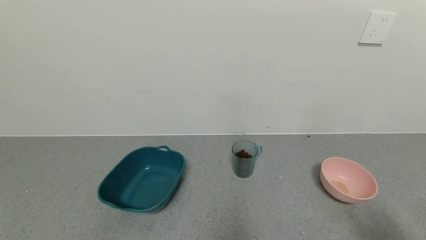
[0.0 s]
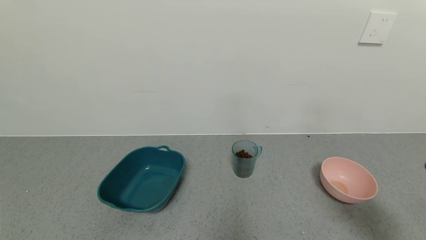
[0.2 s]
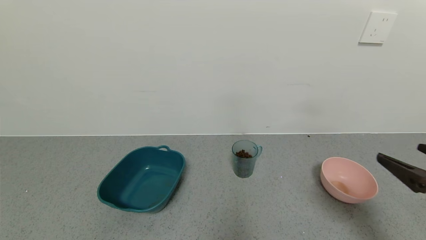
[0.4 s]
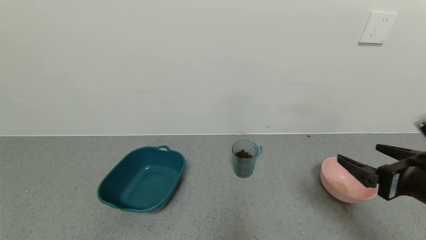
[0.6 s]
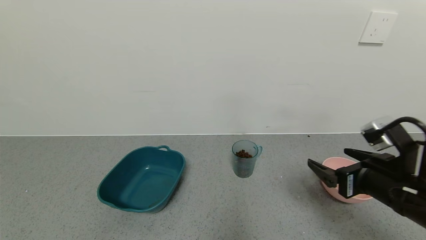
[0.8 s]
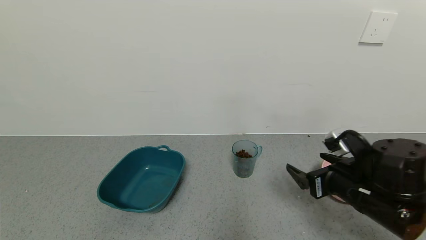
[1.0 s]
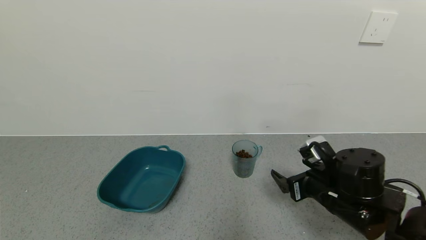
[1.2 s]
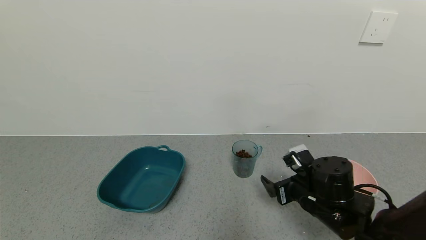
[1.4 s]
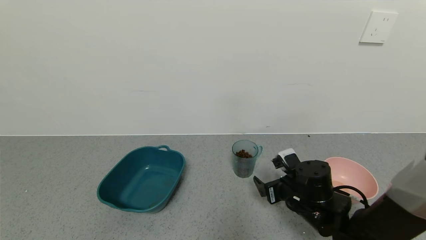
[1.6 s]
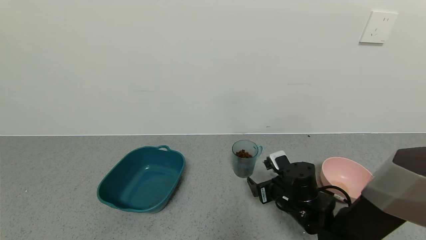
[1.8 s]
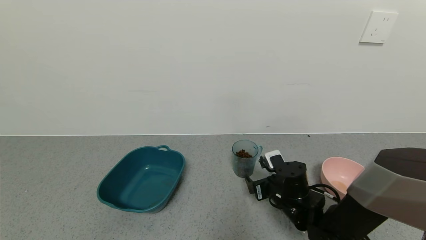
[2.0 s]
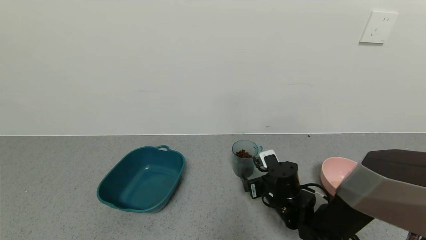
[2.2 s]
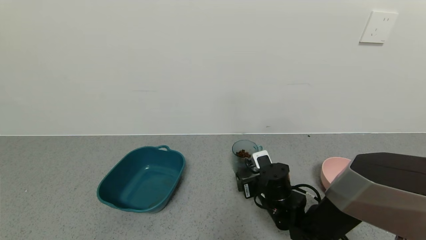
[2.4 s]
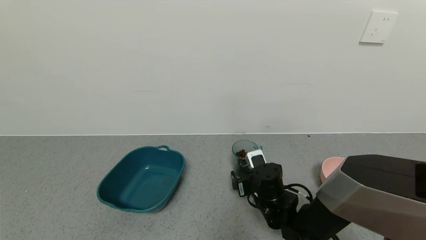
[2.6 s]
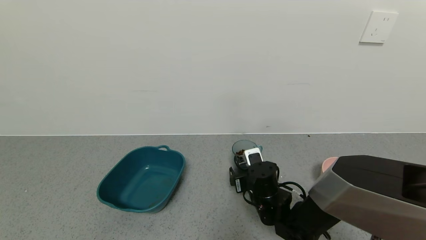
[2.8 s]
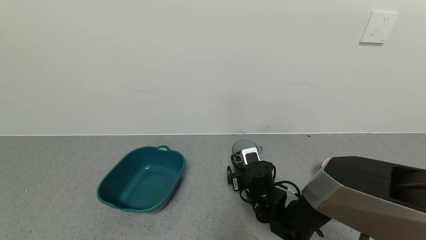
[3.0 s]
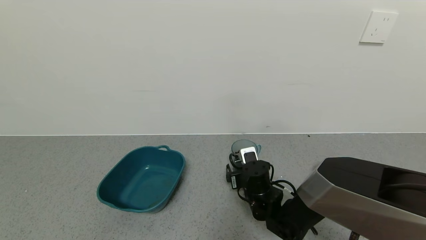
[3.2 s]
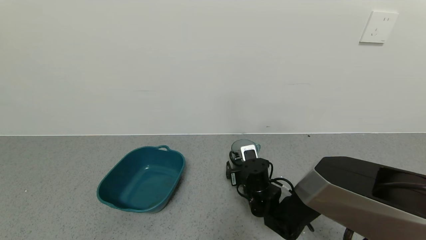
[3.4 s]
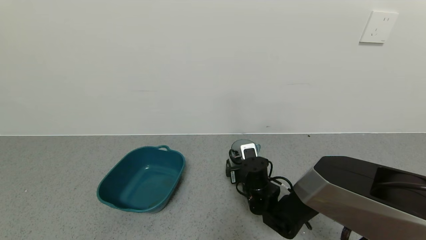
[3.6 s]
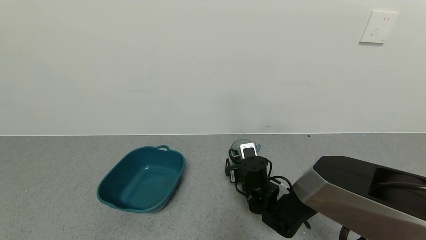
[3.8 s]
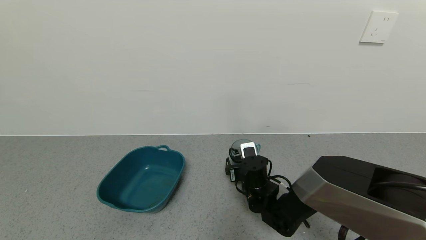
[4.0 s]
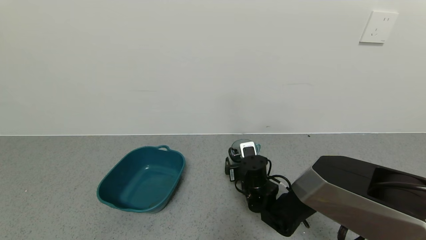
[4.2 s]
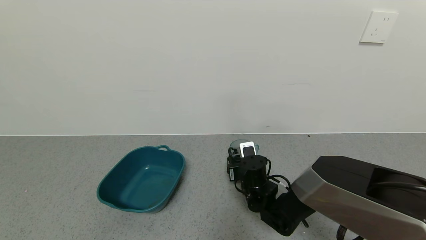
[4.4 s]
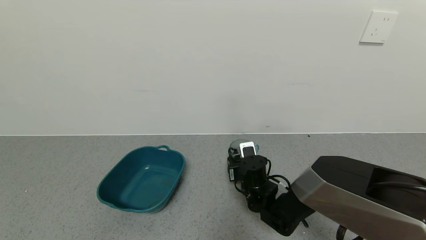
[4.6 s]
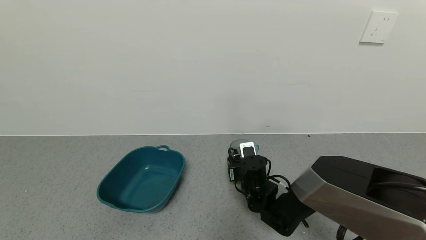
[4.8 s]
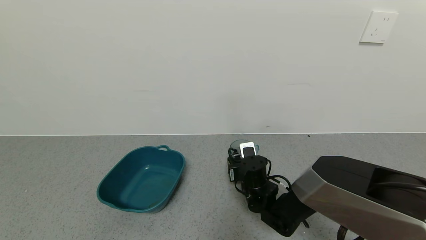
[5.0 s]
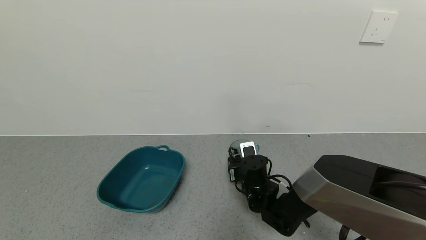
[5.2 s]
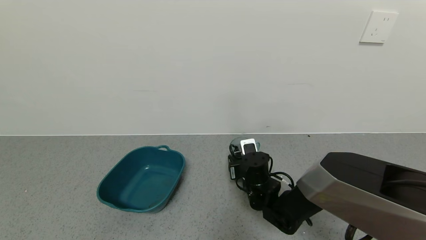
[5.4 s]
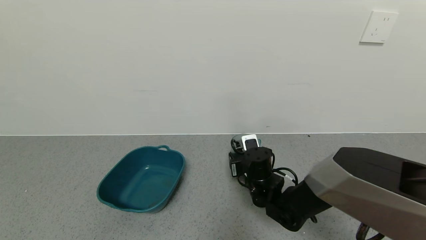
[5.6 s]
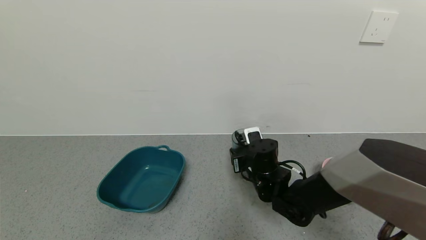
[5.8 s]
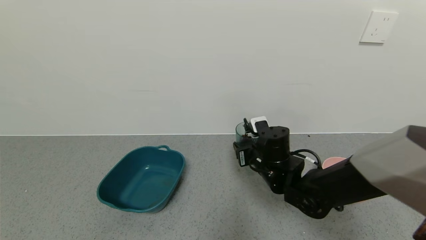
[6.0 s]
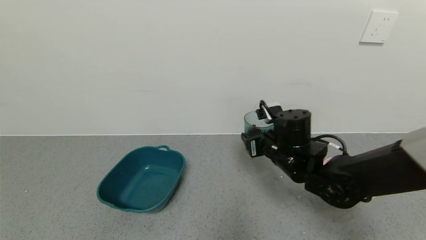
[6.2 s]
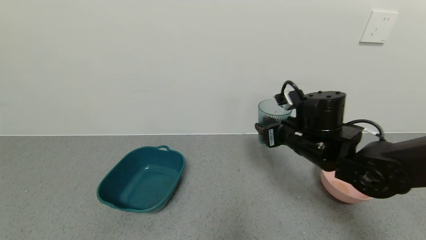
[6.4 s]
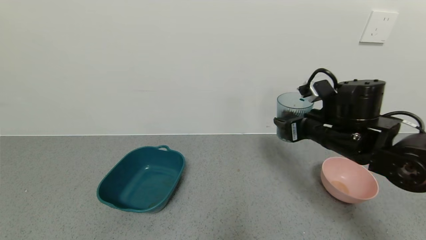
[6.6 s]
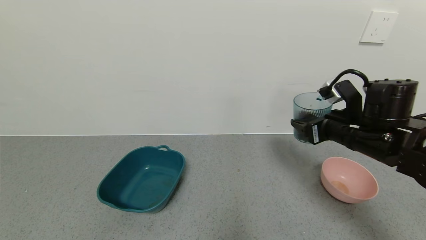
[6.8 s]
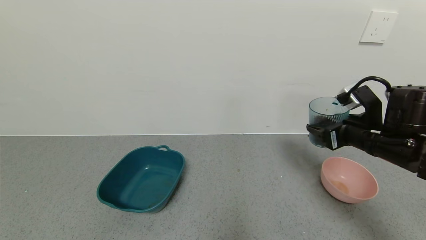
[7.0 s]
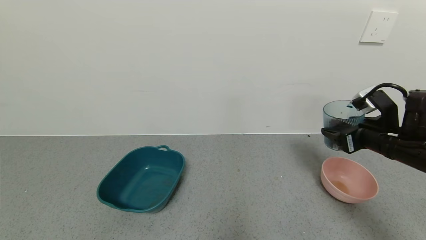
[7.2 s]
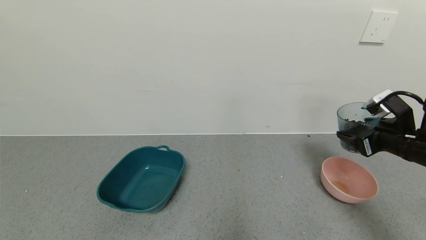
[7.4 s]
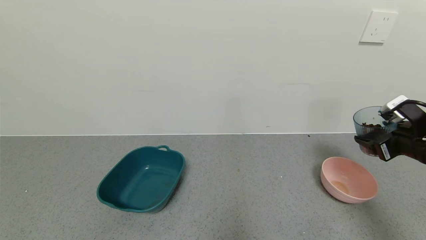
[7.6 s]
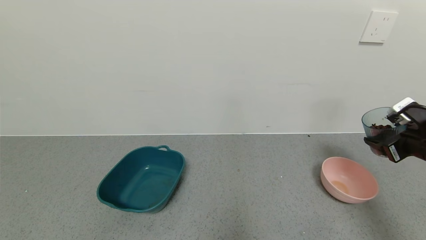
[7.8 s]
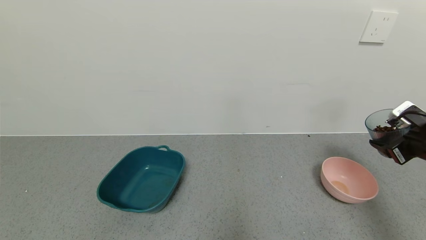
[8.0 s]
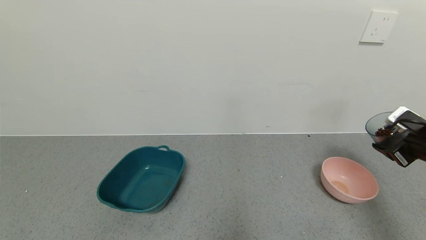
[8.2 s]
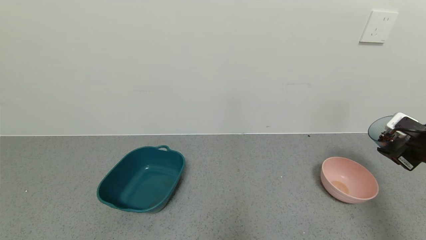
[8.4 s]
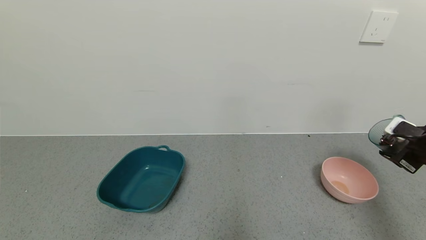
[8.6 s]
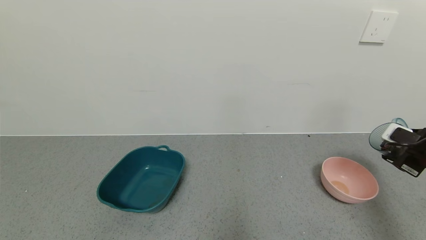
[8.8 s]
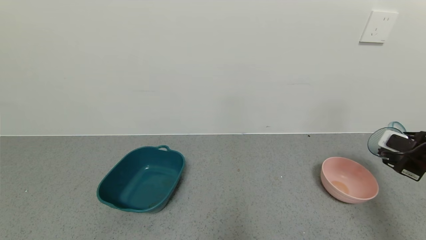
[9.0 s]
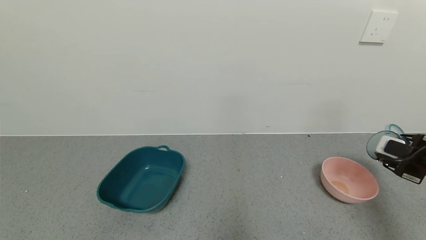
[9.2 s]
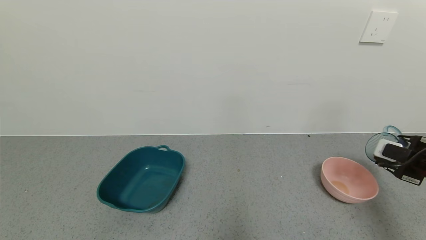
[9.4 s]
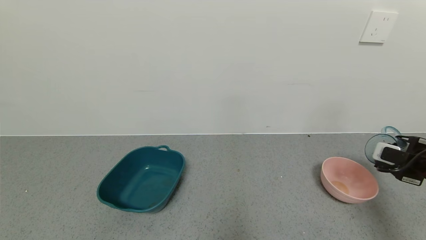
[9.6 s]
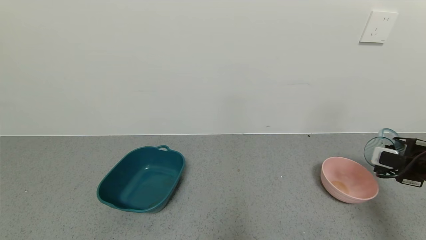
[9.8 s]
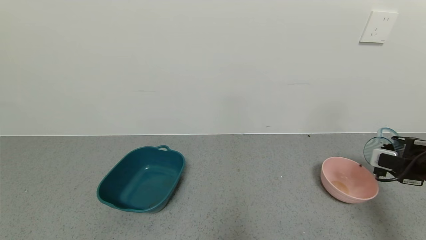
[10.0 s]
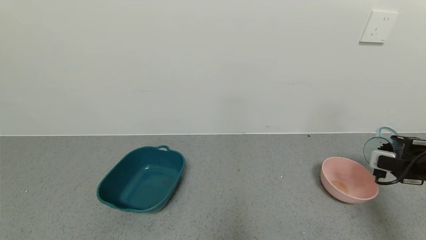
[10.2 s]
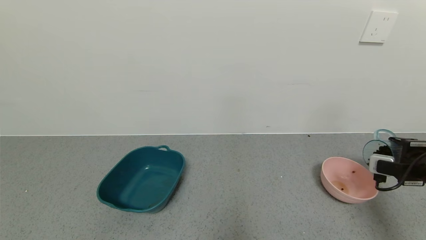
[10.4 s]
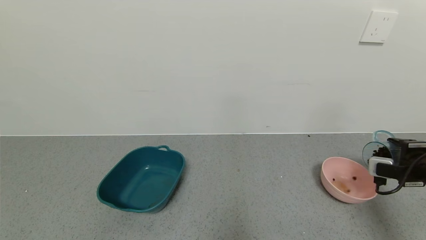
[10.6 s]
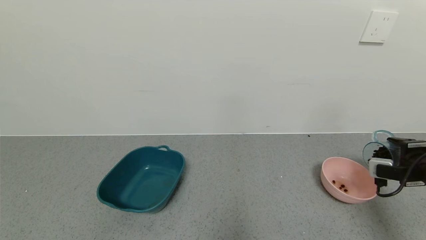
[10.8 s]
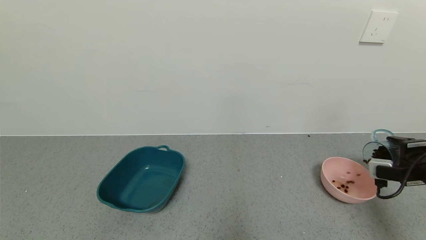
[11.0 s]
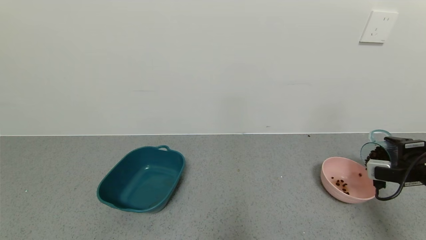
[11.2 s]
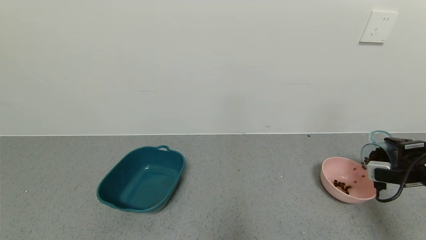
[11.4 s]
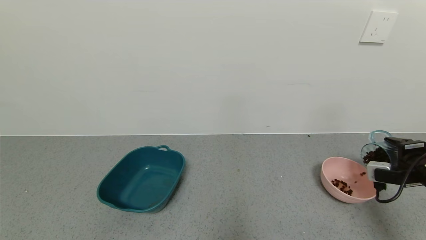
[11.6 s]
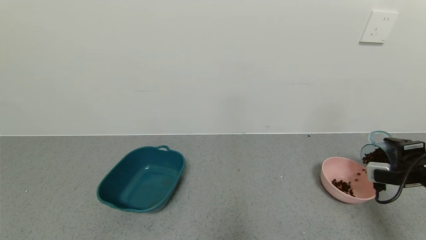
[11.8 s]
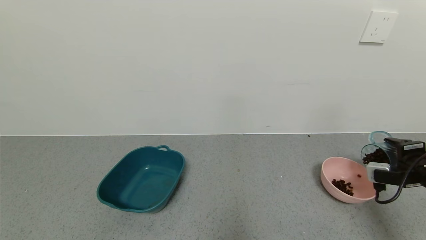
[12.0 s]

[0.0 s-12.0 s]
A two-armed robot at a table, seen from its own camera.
Task of the whole recording: use a gripper to pick up the cup and pour the solid into a bowl or tray.
Step, 0.0 to 5.0 s: Grasp the glass of coffee beans with the right gripper.
0.0 to 1.6 s: The right gripper is displaced forward, to the left and downward by approximately 35 cm.
1.6 to 3.0 s: The right gripper travels to the left by about 10 cm.
3.0 to 4.4 s: The right gripper closes.
4.4 to 6.0 s: The right gripper goes roughly 10 cm upward.
6.0 to 7.6 s: The right gripper goes some 30 cm to the right.
7.6 to 9.0 s: The right gripper changes place by approximately 5 cm.
10.4 to 12.0 s: The grippers move only a little.

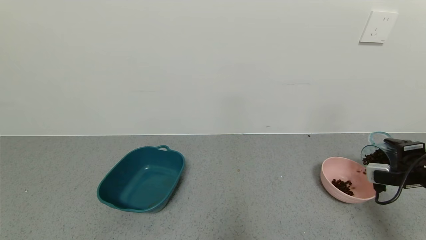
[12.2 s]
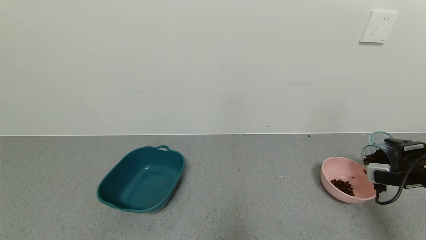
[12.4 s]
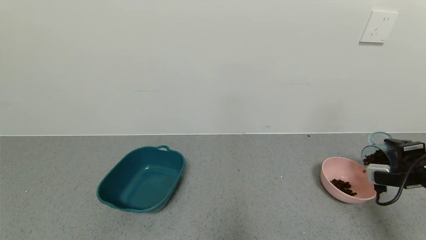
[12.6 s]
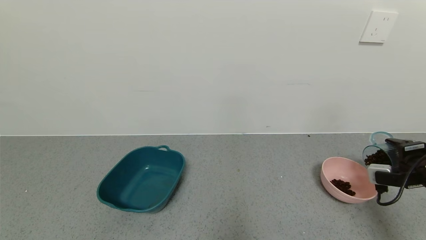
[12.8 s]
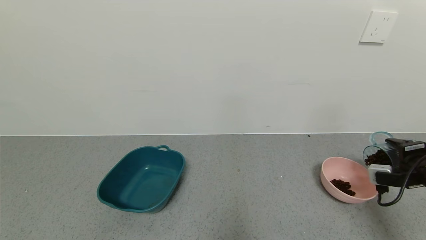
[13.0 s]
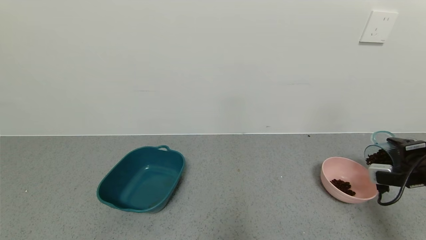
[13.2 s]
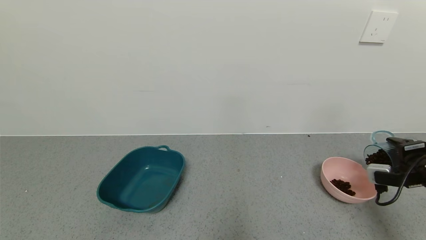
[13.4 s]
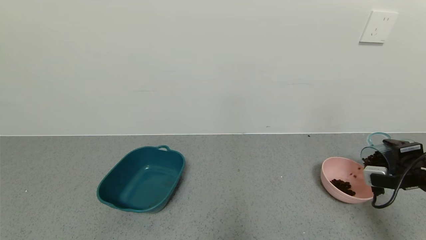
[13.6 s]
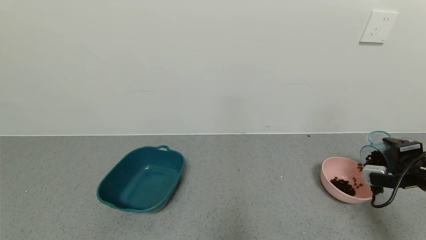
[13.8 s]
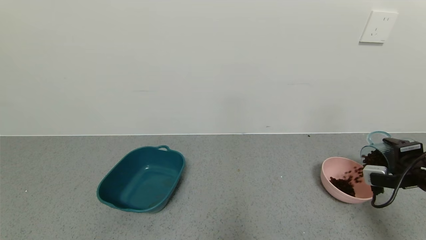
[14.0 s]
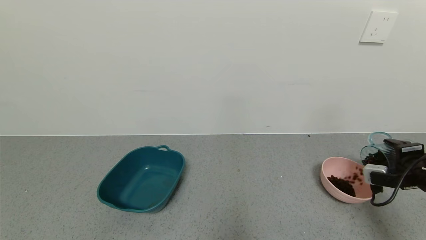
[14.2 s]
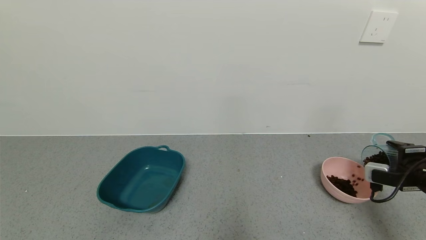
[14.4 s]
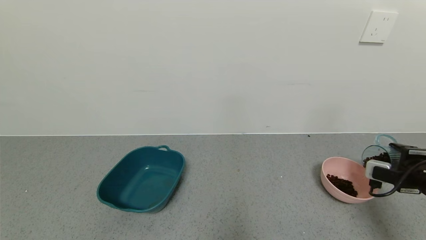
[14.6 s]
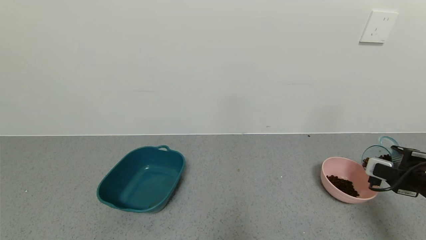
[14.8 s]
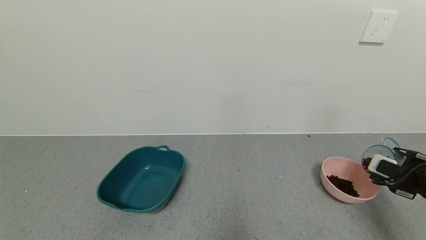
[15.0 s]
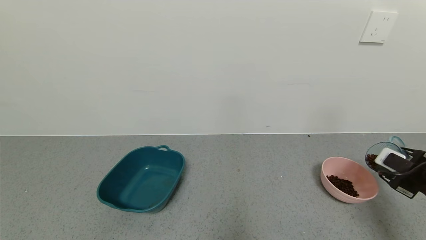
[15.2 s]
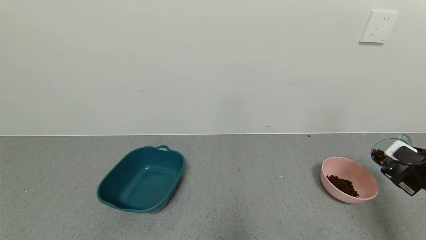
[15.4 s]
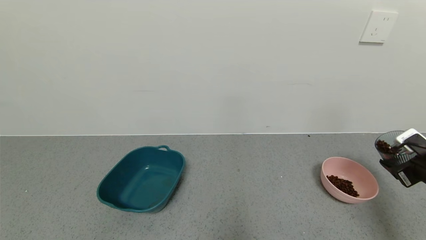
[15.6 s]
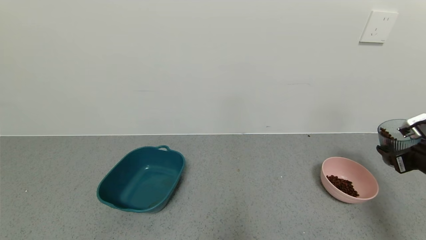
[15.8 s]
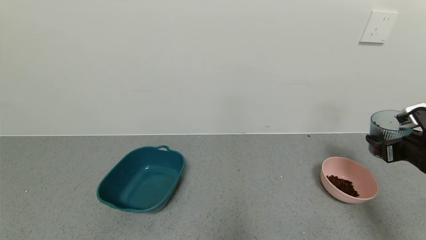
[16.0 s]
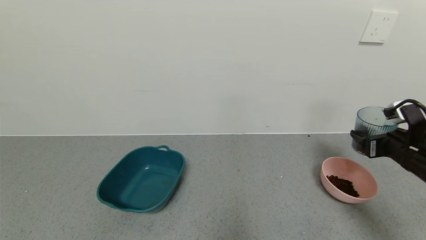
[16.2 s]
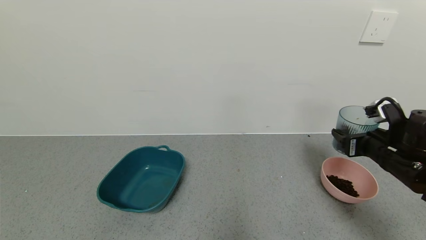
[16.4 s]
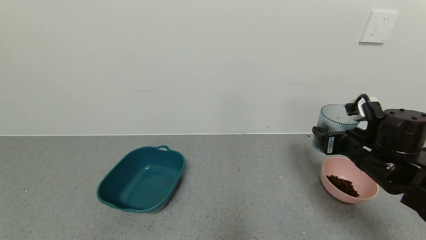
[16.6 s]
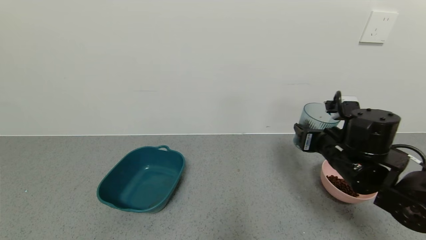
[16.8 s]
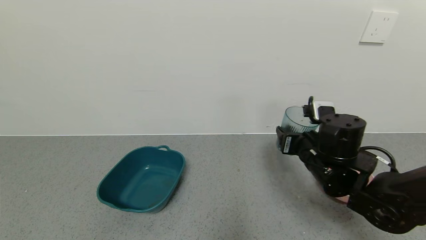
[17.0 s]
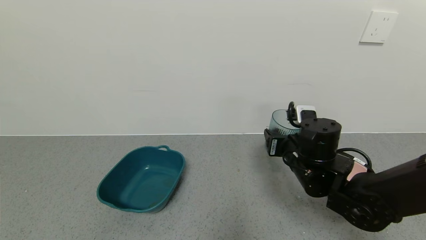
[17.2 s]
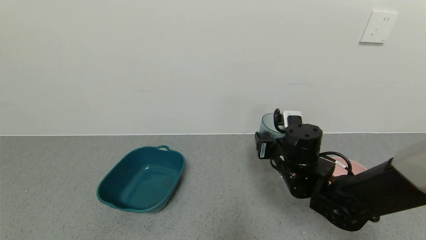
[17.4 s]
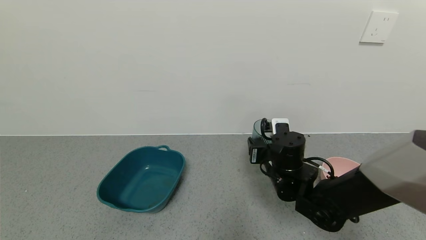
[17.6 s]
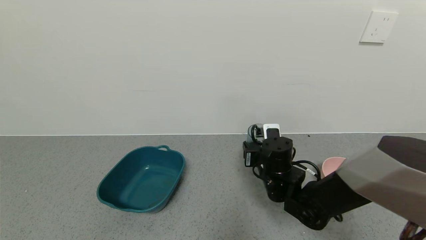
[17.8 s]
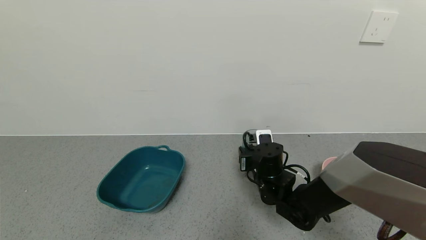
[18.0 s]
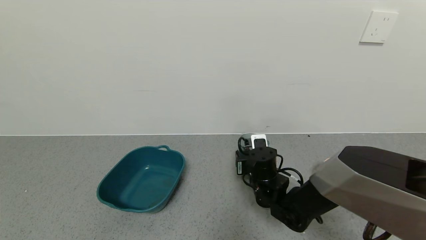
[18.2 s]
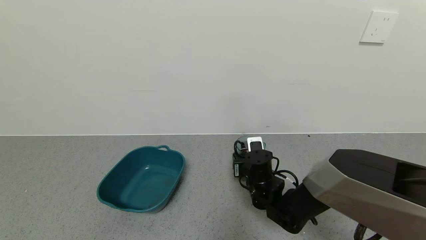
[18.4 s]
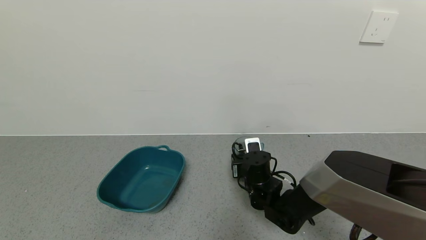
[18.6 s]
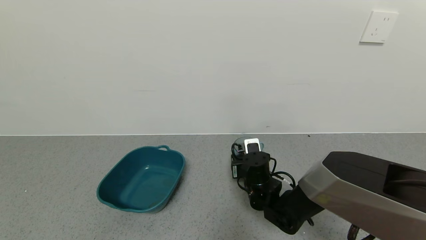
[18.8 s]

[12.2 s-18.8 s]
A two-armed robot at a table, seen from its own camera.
Task of the whole recording: use a gripper to pick up the cup and pour the solid into a bowl or tray.
Step, 12.2 to 15.6 s: Pour the coffee beans into the pink bowl with the right gripper.
12.2 to 13.8 s: There are only small adjustments of the grippers.
15.4 to 17.2 s: The right gripper moves to the left, about 25 cm.
17.2 to 18.8 s: The right gripper moves downward and to the left, approximately 15 cm.
